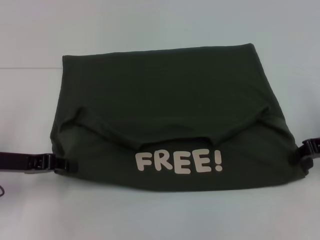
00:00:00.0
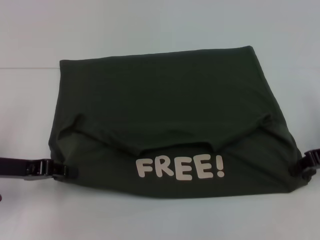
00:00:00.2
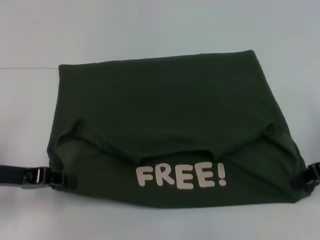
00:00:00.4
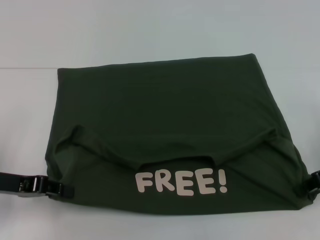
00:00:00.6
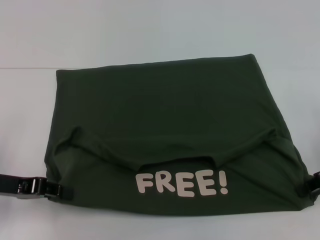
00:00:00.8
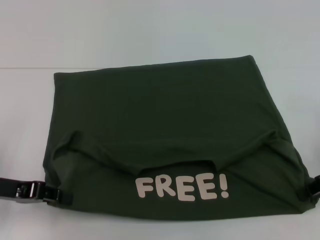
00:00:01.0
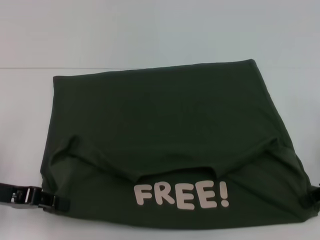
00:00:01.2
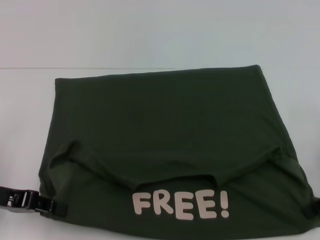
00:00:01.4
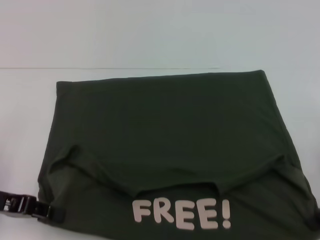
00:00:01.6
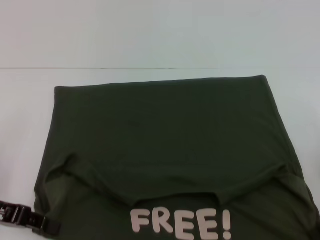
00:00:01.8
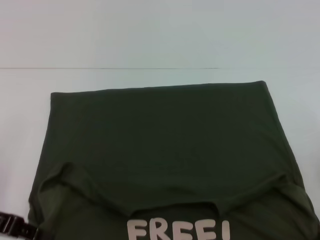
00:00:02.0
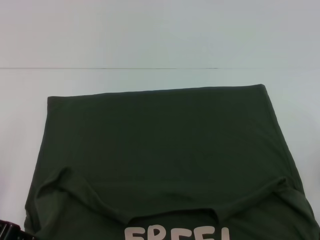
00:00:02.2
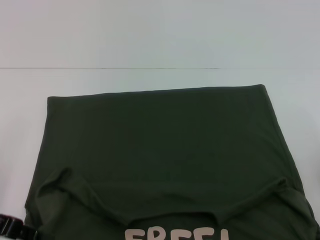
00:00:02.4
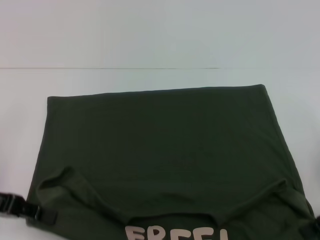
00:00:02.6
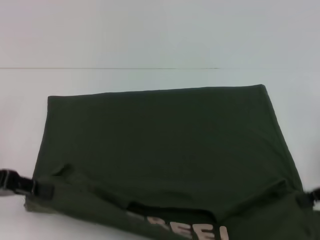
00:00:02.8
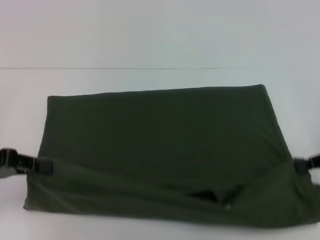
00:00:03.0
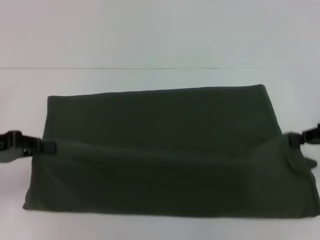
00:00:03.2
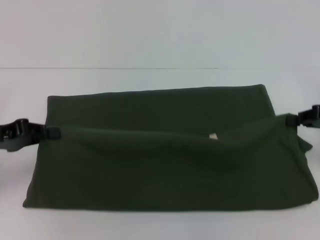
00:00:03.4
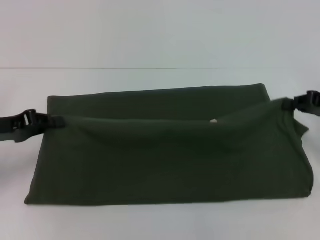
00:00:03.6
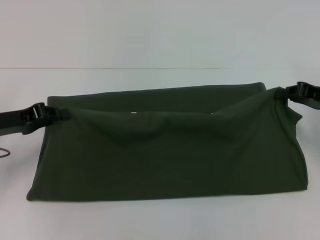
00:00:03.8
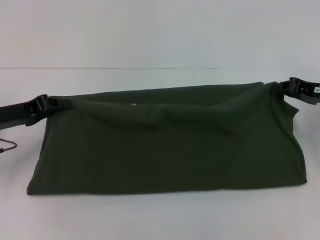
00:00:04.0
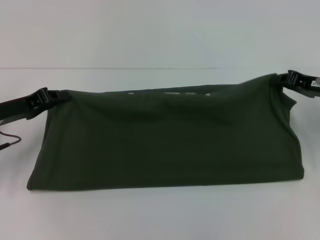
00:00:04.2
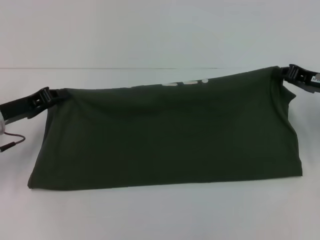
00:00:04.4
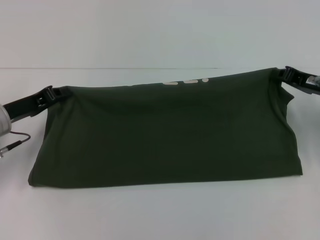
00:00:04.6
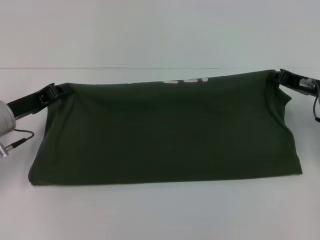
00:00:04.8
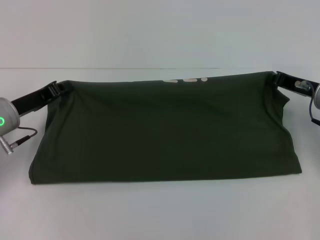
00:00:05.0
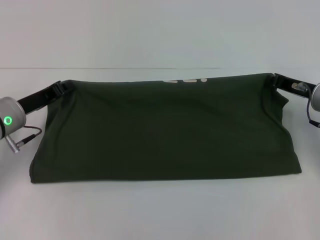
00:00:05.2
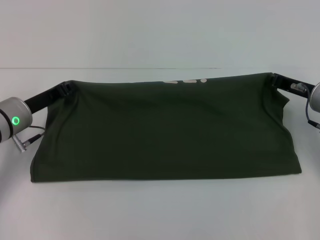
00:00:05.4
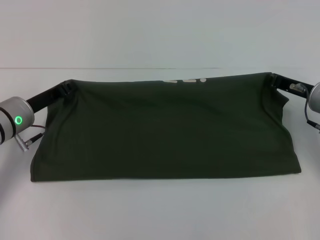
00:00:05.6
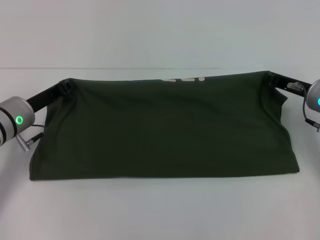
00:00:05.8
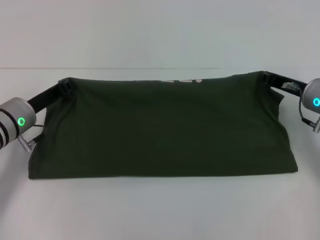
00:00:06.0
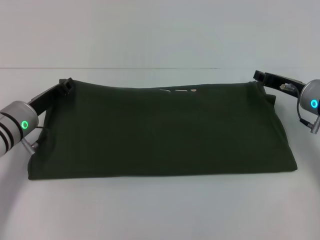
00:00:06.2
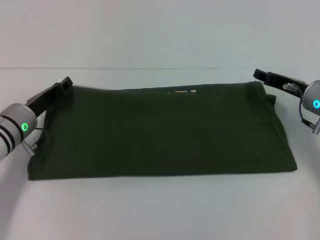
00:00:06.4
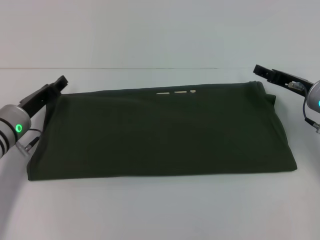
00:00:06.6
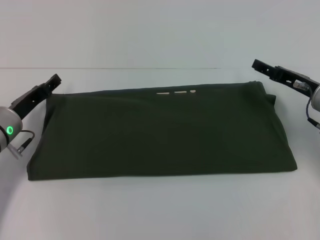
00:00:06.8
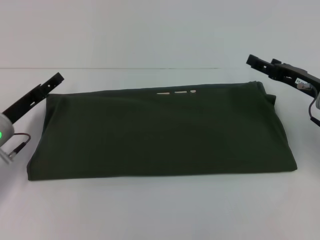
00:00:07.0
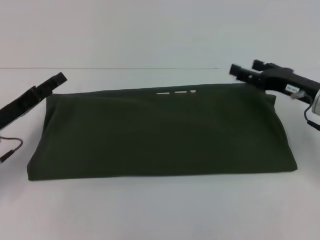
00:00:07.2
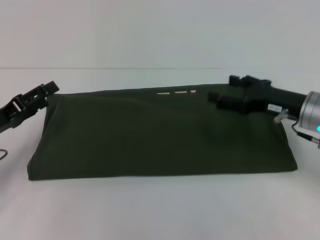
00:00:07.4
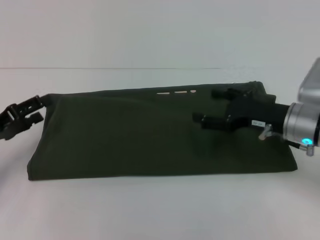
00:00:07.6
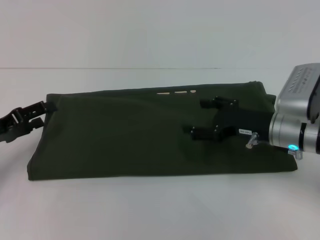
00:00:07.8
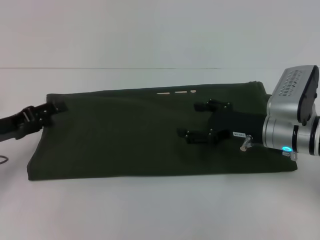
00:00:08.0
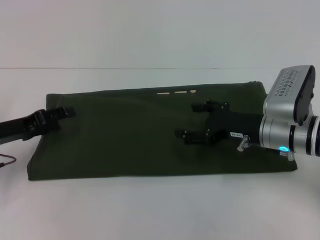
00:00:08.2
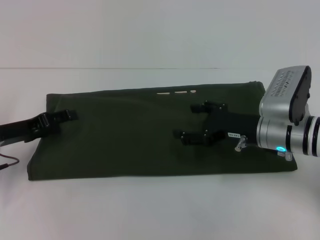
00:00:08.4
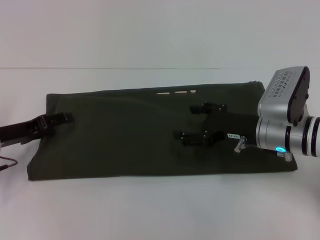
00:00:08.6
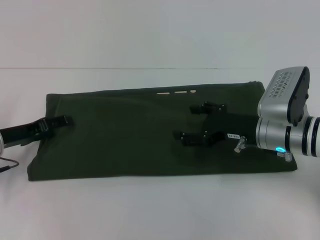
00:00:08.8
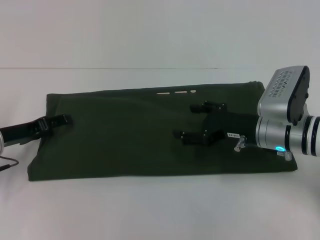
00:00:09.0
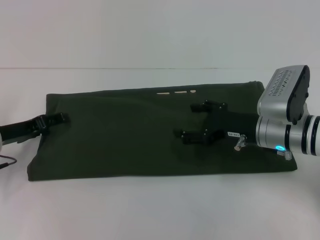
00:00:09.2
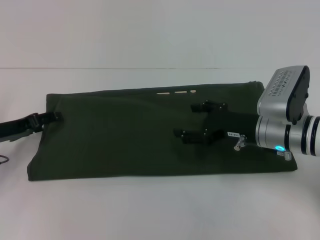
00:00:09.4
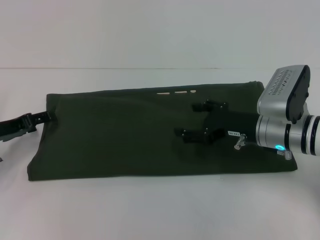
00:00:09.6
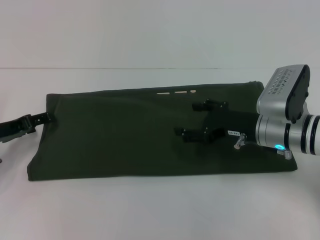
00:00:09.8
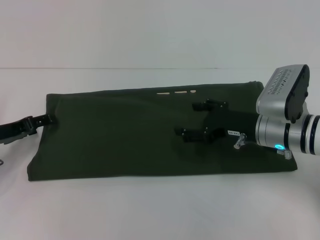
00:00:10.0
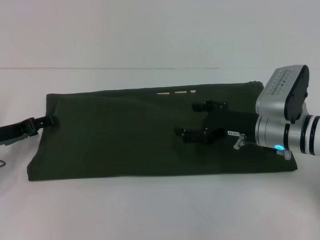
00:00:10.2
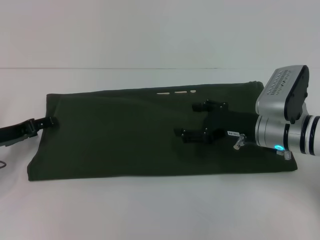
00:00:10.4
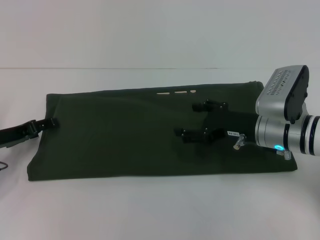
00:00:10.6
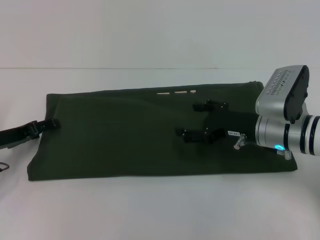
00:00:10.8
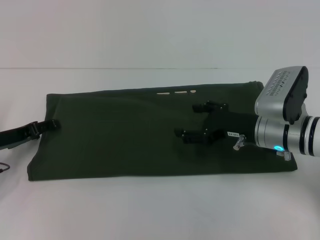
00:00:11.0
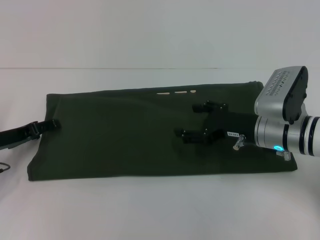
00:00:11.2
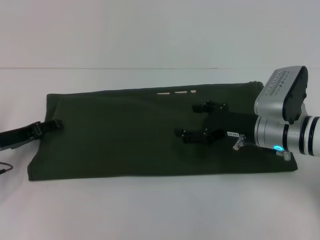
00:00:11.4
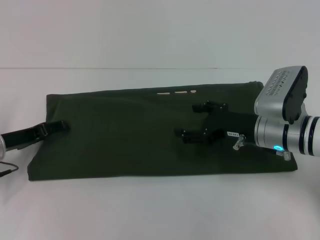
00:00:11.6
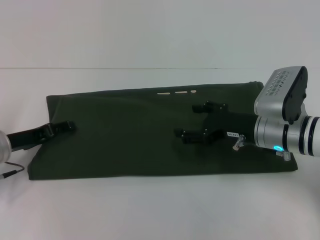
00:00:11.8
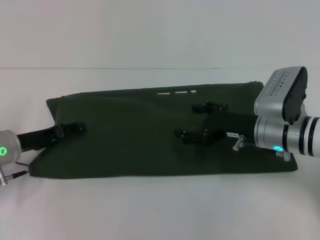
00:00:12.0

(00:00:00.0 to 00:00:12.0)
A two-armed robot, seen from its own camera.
Step, 00:00:00.0 - 00:00:02.0: Pull the clothes with your left hand.
Step, 00:00:00.0 - 00:00:02.0: Pull the clothes with your right hand.
Step, 00:00:02.2 - 00:00:06.4: Fold the clothes with your right hand.
00:00:00.0 - 00:00:01.6: The right gripper moves backward, about 5 cm.
00:00:03.0 - 00:00:04.4: The grippers both shift forward by some 5 cm.
00:00:04.4 - 00:00:06.0: The left gripper changes place by approximately 5 cm, while the right gripper shifts by approximately 5 cm.
00:00:06.0 - 00:00:07.6: The left gripper goes roughly 10 cm to the left and backward, and opens up; the right gripper is displaced backward by approximately 5 cm, and opens its fingers.
00:00:07.6 - 00:00:09.0: The left gripper ends up roughly 5 cm from where it was.
00:00:09.0 - 00:00:12.0: The grippers move only a little.

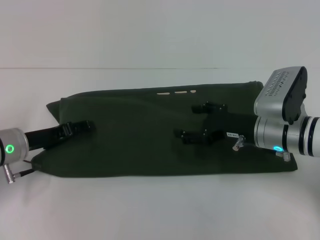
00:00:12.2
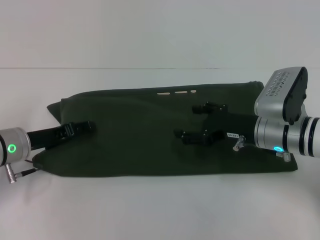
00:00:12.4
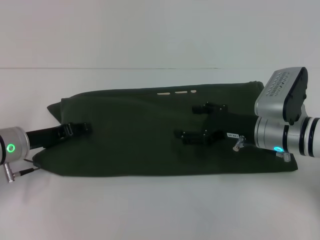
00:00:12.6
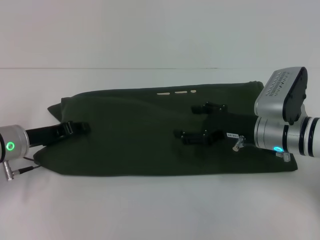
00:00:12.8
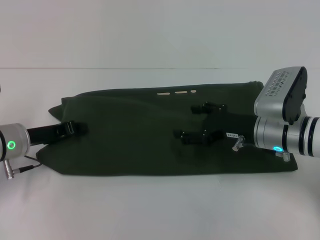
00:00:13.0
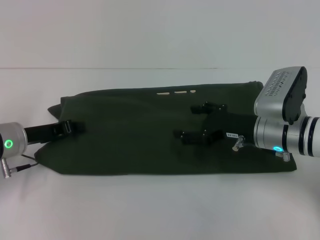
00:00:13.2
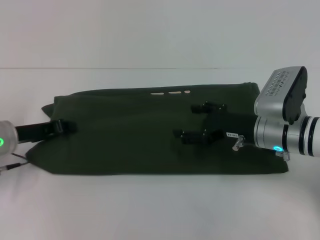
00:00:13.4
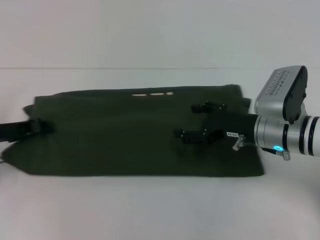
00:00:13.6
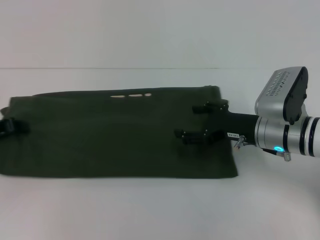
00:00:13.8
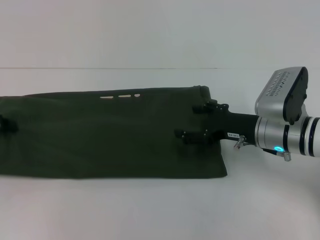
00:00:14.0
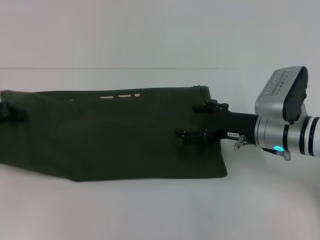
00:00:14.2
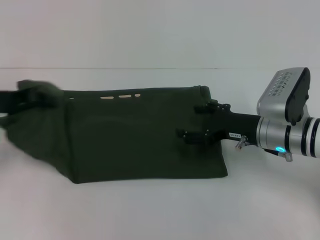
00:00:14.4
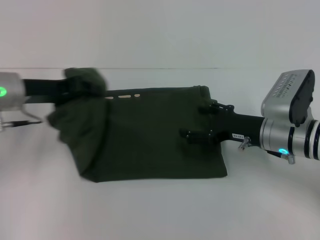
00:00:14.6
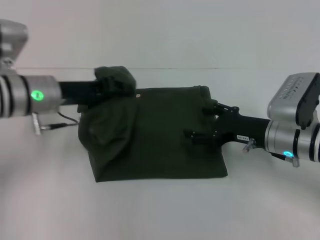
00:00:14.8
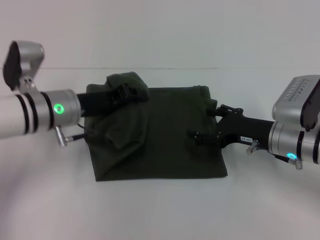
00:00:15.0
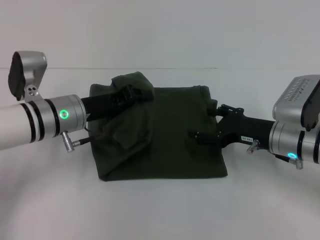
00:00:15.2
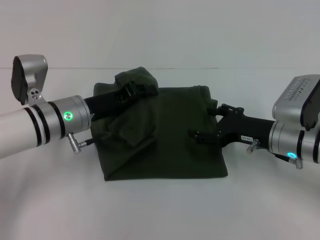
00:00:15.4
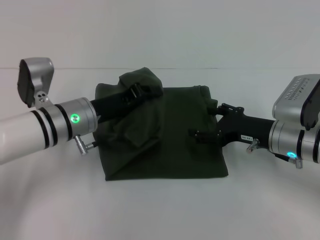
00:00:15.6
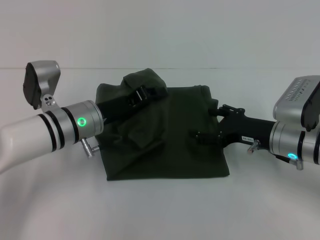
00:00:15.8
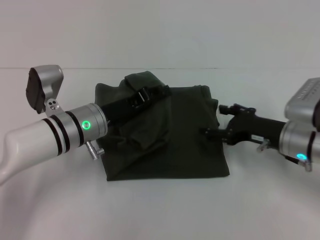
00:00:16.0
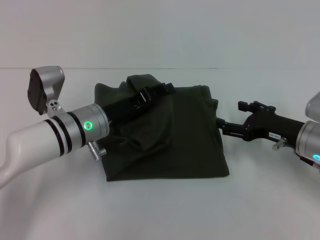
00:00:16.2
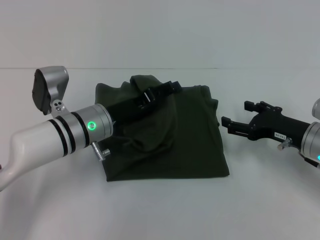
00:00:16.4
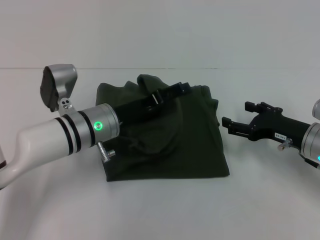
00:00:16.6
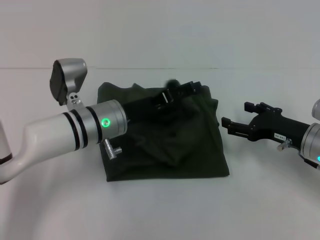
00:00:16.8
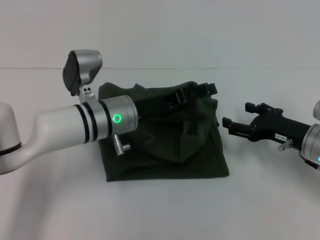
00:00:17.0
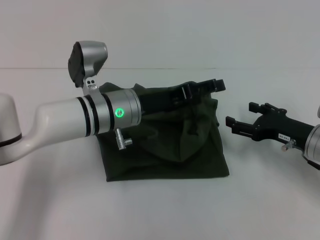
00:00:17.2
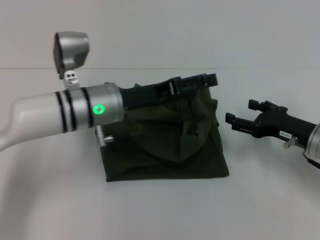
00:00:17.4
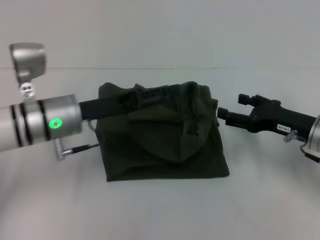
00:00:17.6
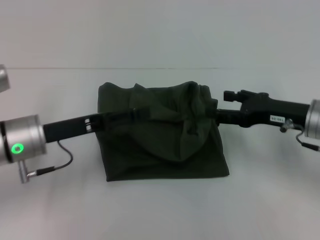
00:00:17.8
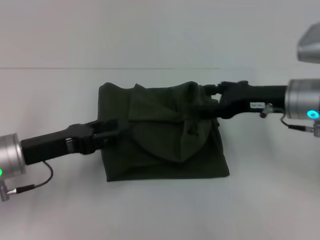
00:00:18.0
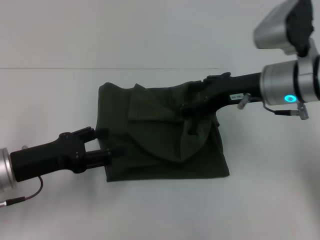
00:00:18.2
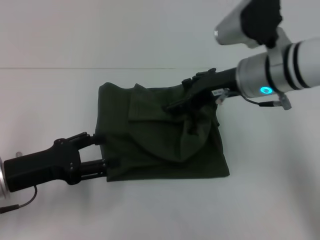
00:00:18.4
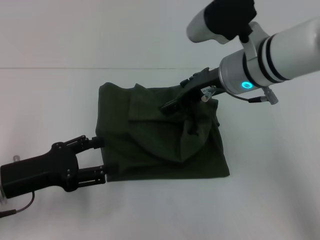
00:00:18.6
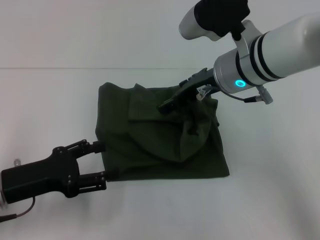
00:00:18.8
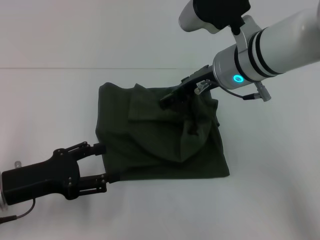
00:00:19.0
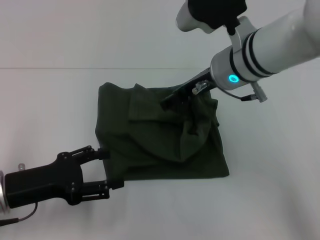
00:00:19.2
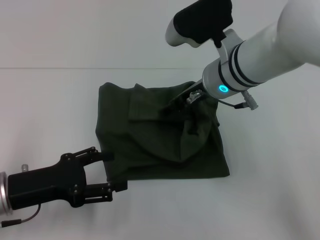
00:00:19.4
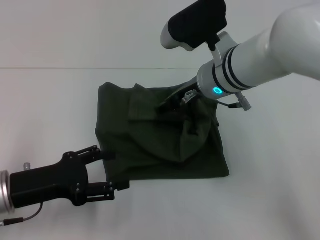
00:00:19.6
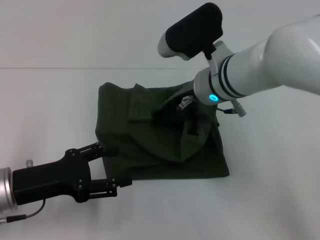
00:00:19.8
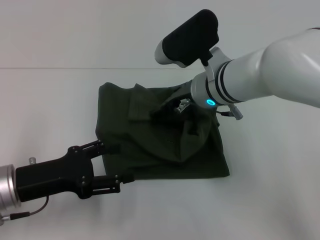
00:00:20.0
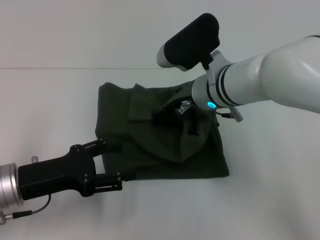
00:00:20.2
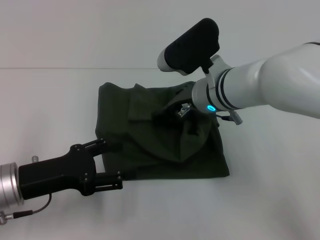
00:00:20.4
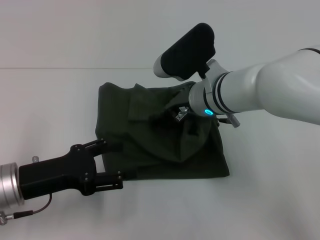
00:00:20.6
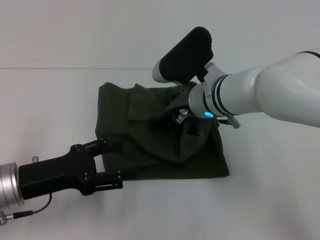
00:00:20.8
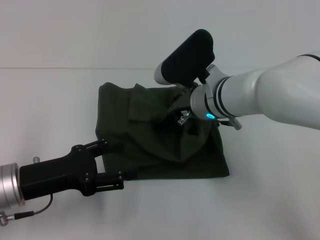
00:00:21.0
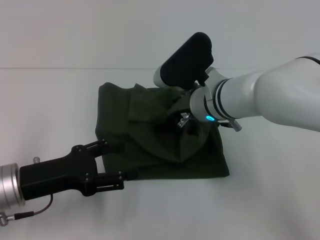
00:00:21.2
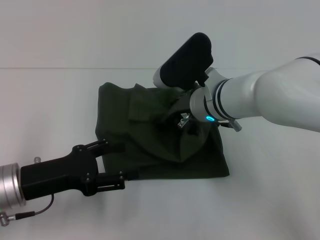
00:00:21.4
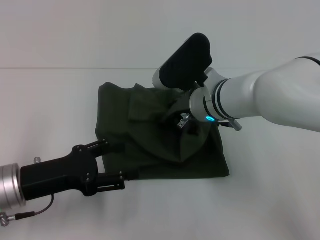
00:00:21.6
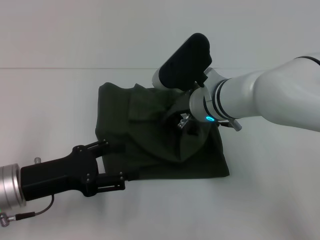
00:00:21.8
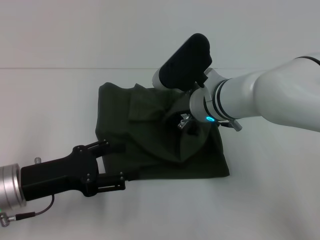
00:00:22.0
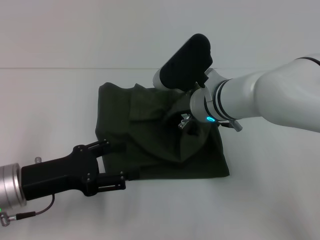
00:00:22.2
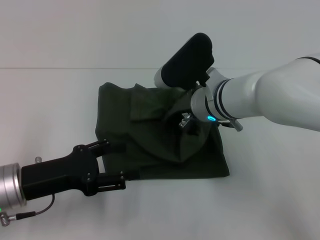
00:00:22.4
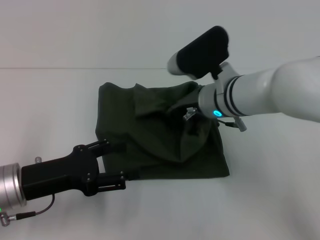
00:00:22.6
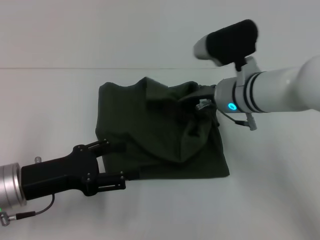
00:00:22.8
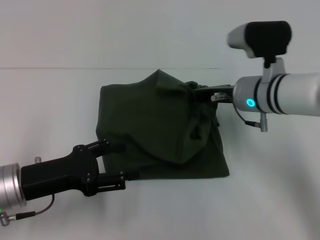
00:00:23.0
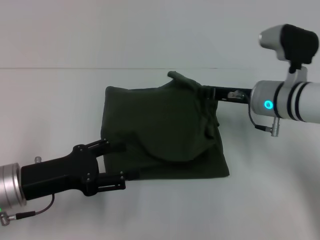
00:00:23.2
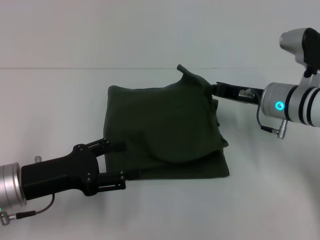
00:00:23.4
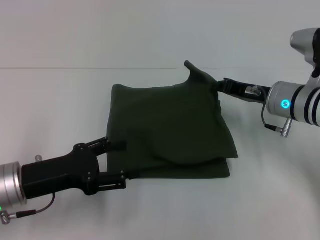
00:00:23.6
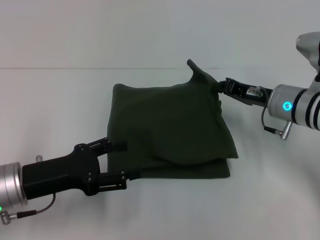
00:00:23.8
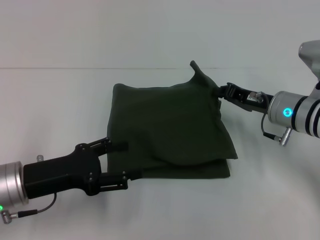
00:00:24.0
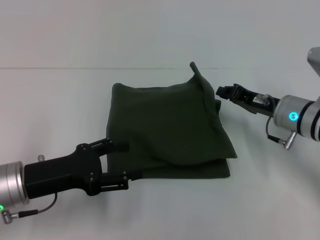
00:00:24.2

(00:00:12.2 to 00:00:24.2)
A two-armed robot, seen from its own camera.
Step, 00:00:12.2 - 00:00:16.8: Fold the clothes with your left hand.
00:00:12.2 - 00:00:13.8: The left gripper is displaced to the left by about 10 cm, and closes its fingers.
00:00:13.8 - 00:00:15.2: The left gripper goes about 20 cm to the right.
00:00:15.2 - 00:00:16.6: The left gripper moves about 5 cm, and opens its fingers; the right gripper changes place by some 5 cm.
00:00:16.6 - 00:00:18.2: The right gripper shifts roughly 15 cm upward and to the left, while the left gripper shifts some 15 cm to the left and backward.
00:00:18.2 - 00:00:19.8: The right gripper is displaced to the left by about 10 cm.
00:00:19.8 - 00:00:21.2: The grippers stay close to where they were, moving slightly.
00:00:21.2 - 00:00:22.6: The right gripper closes its fingers.
00:00:22.6 - 00:00:24.2: The right gripper heads to the right, covering some 15 cm.
